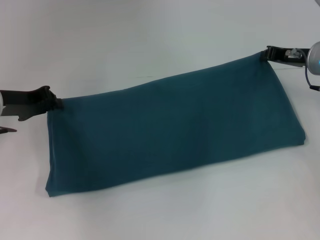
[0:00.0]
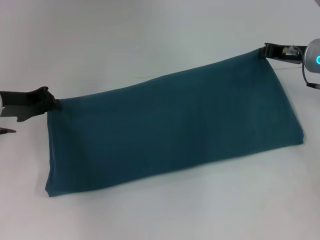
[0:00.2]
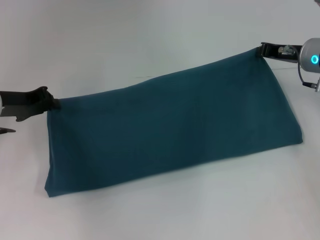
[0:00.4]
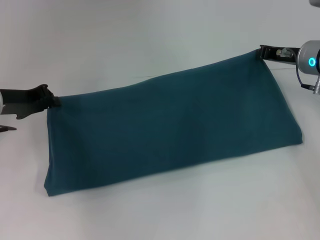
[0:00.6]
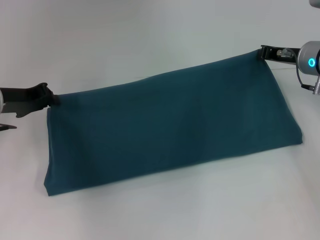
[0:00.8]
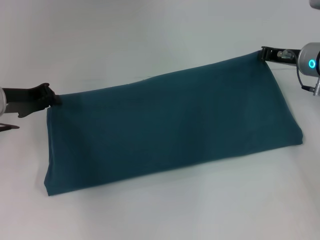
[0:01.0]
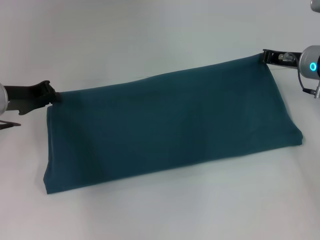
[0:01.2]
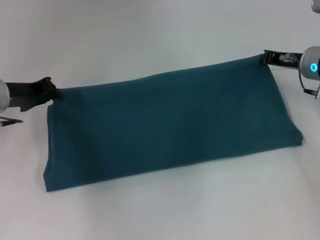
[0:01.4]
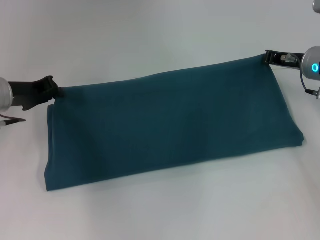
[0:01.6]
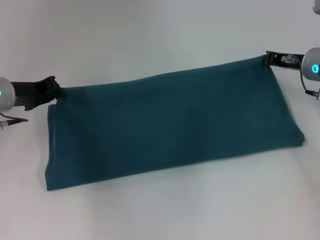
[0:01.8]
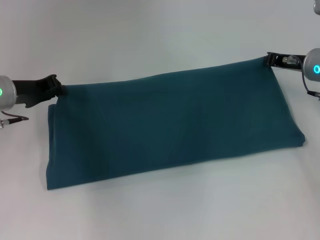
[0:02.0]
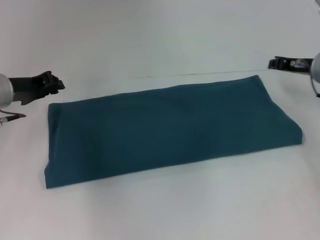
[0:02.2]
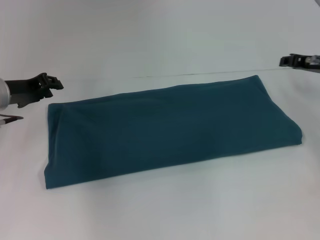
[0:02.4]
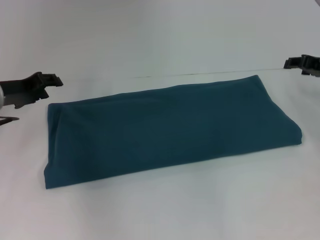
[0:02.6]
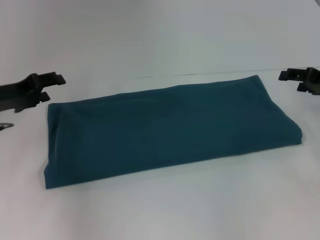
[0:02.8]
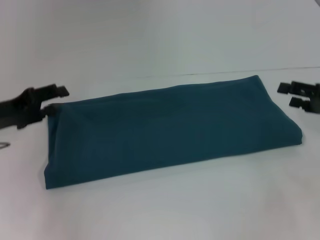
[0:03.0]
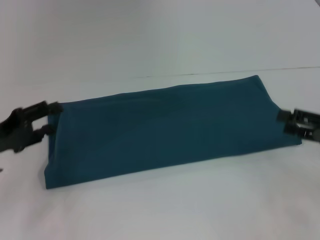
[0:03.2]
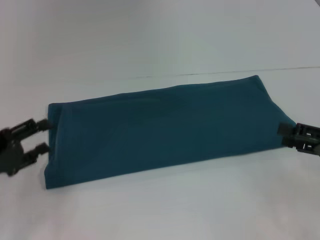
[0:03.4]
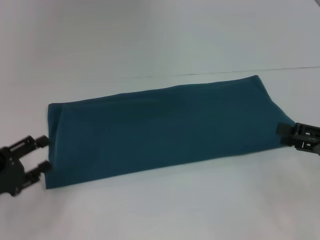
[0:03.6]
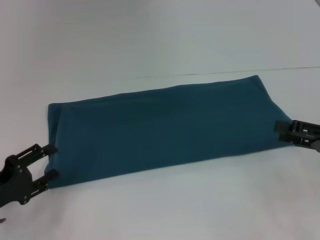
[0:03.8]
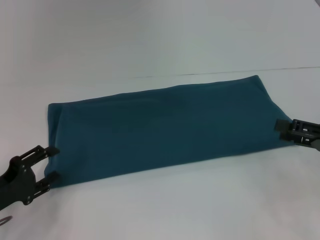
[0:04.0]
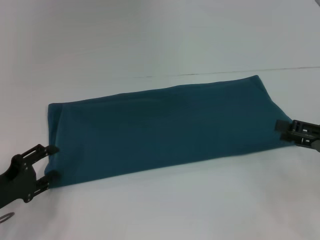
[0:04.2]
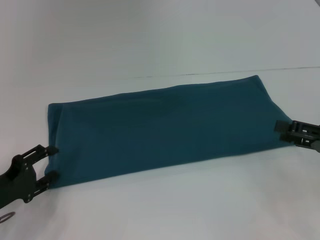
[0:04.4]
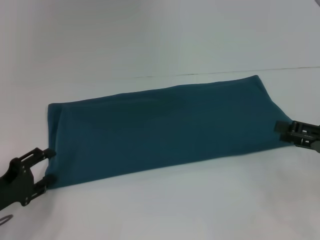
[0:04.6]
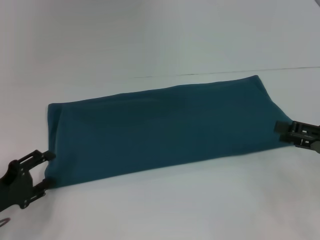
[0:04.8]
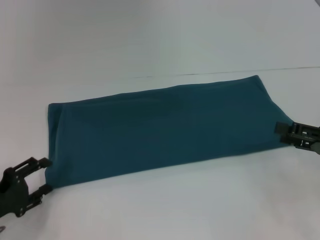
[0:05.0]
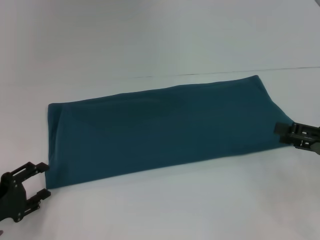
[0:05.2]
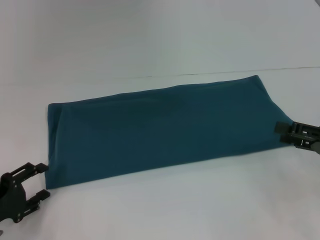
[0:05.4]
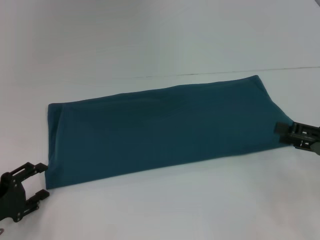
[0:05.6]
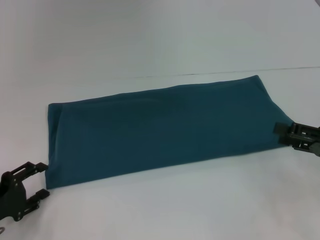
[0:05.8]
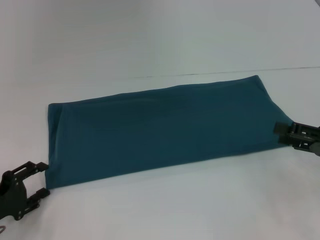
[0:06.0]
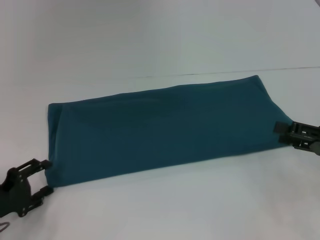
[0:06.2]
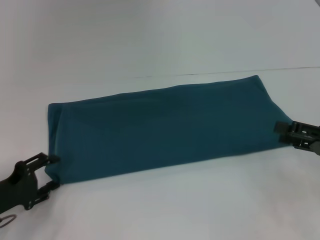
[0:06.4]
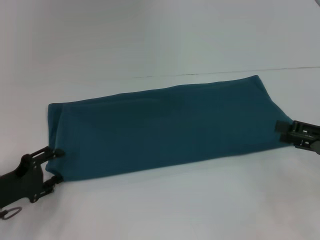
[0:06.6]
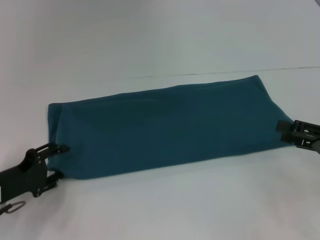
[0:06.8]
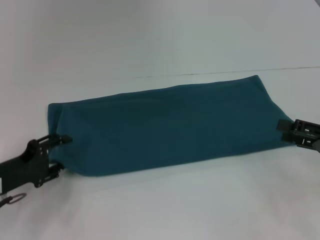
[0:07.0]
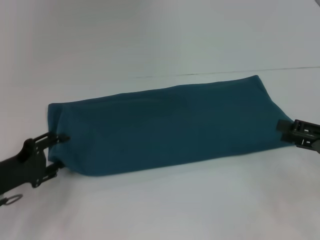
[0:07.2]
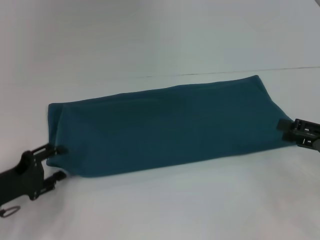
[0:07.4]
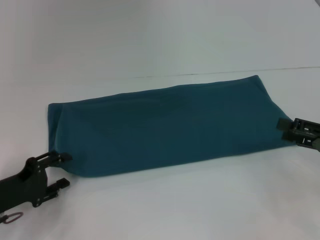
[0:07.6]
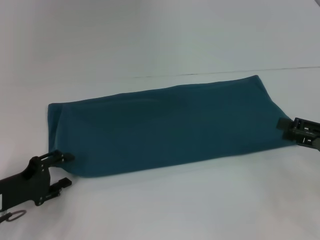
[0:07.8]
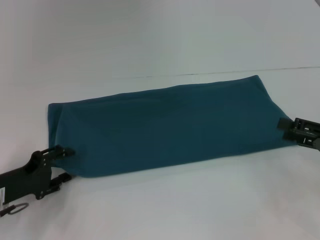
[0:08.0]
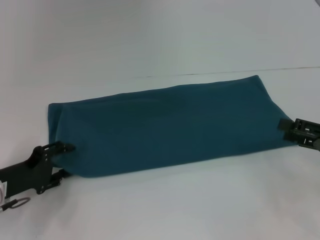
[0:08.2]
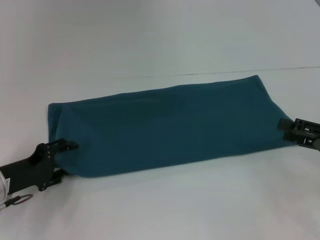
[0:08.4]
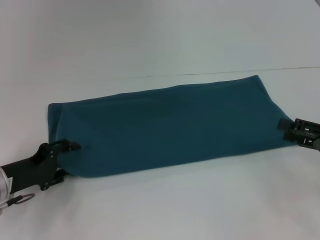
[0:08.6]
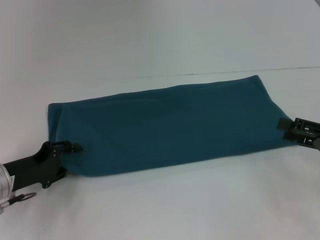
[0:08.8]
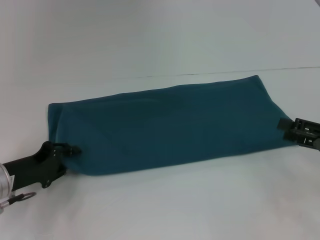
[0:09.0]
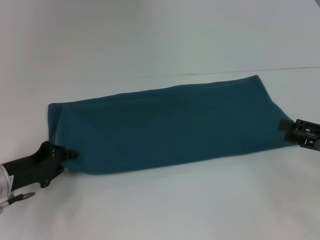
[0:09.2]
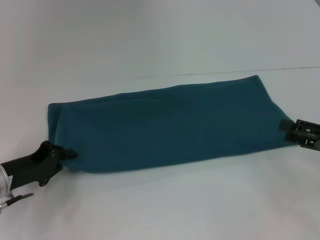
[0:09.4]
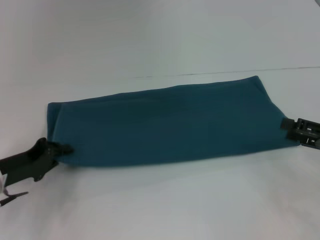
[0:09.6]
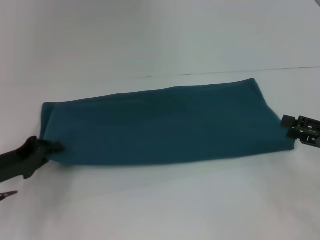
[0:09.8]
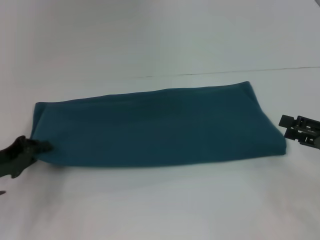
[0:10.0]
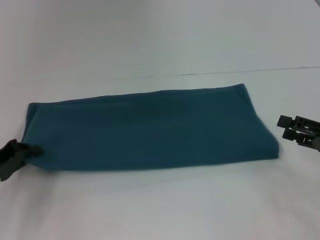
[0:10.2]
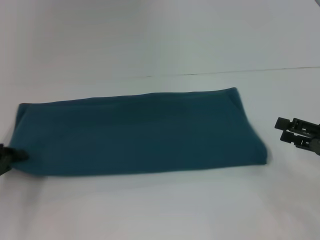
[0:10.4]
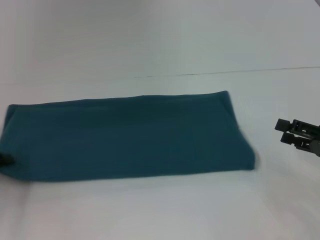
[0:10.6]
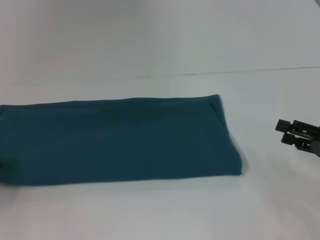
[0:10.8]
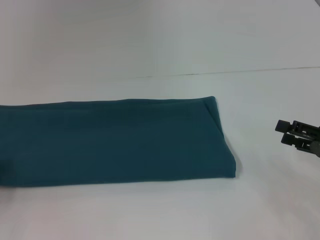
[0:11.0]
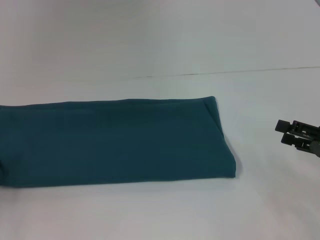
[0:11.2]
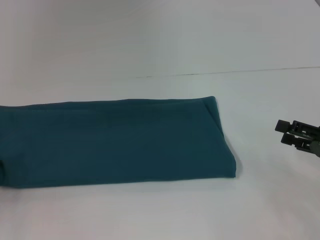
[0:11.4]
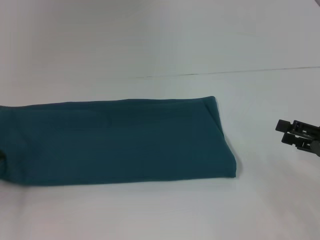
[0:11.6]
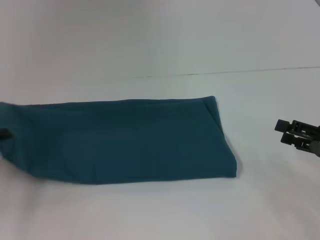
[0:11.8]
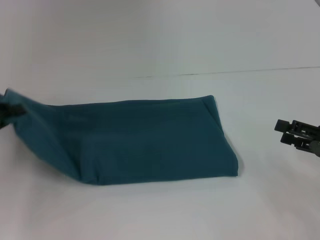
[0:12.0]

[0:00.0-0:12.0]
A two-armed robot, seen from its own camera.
Step, 0:00.0 to 0:02.2: Fold the clothes to the right.
0:00.0 to 0:01.6: The grippers make only small movements.
0:01.6 to 0:03.0: The left gripper heads backward, covering some 5 cm, and opens up. The right gripper is displaced backward and to the right by some 15 cm, and opens.
0:03.0 to 0:04.4: The left gripper heads downward and backward, covering some 15 cm, while the right gripper shifts some 5 cm backward.
0:04.4 to 0:06.0: The grippers move only a little.
0:07.6 to 0:09.0: The grippers make only small movements.
0:09.0 to 0:10.4: The left gripper heads to the left, covering some 5 cm, and closes its fingers.
0:10.4 to 0:12.0: The left gripper heads upward, covering roughly 5 cm.

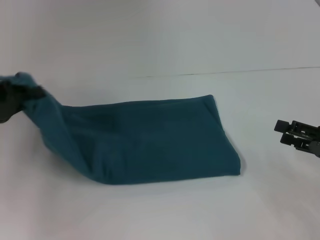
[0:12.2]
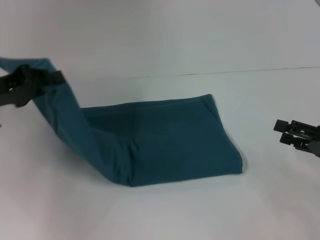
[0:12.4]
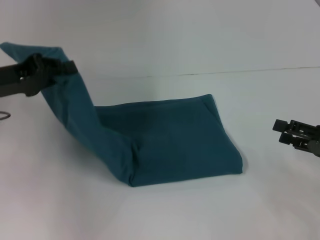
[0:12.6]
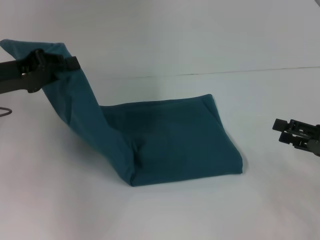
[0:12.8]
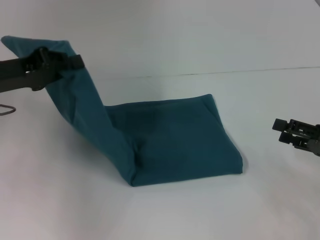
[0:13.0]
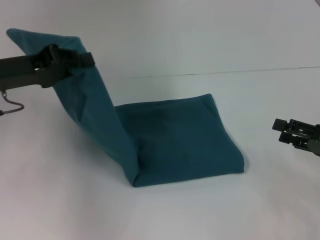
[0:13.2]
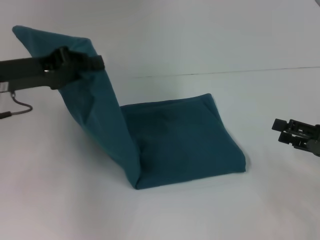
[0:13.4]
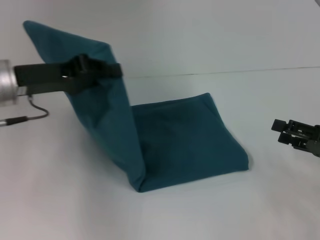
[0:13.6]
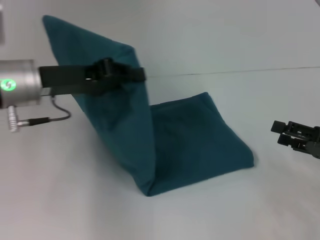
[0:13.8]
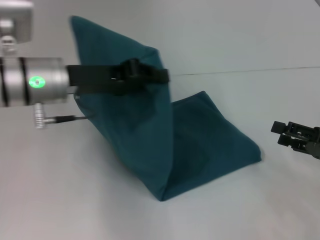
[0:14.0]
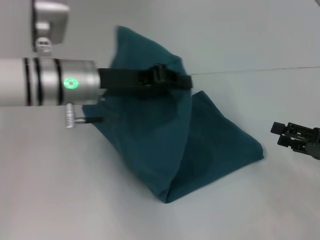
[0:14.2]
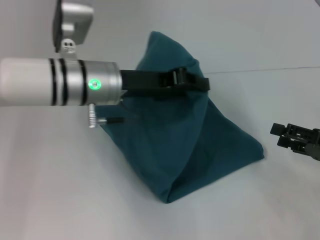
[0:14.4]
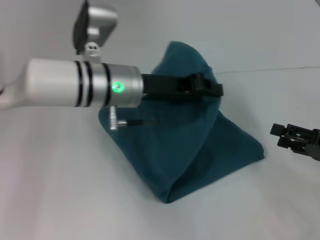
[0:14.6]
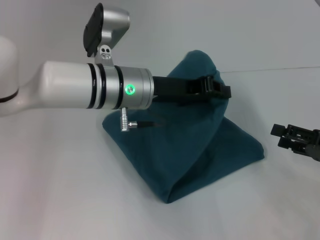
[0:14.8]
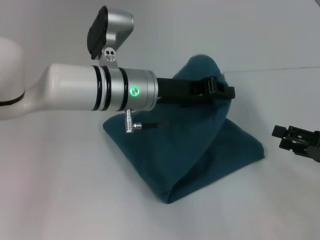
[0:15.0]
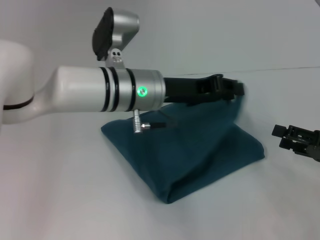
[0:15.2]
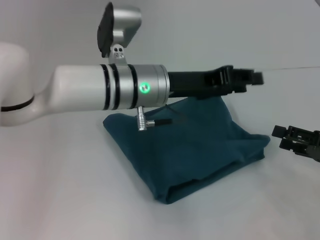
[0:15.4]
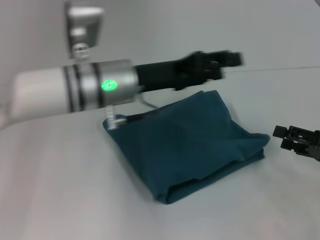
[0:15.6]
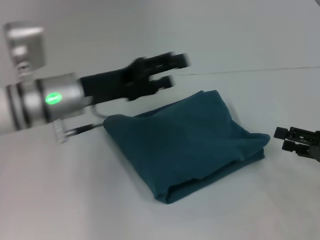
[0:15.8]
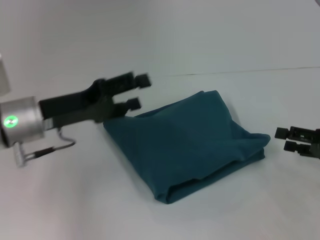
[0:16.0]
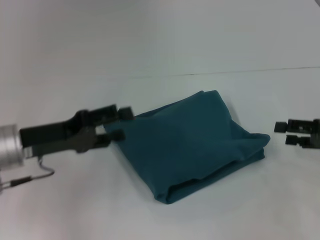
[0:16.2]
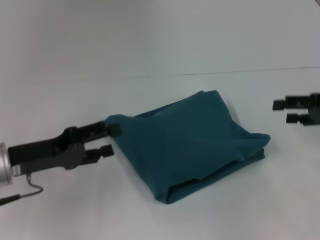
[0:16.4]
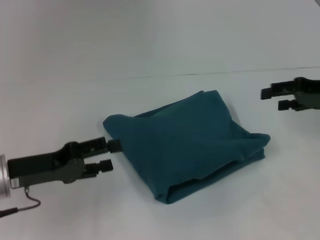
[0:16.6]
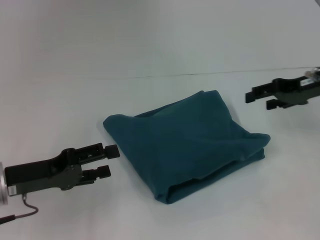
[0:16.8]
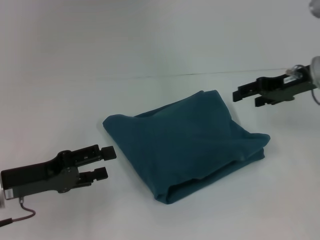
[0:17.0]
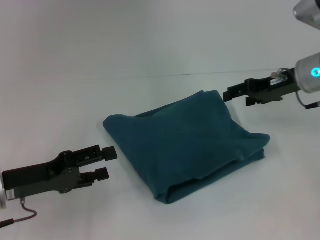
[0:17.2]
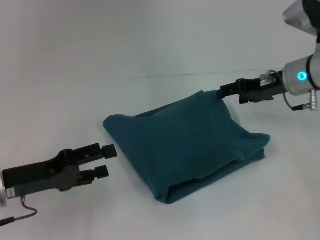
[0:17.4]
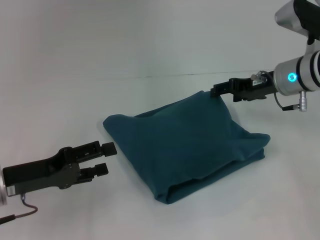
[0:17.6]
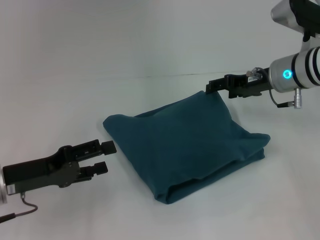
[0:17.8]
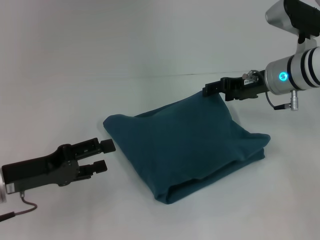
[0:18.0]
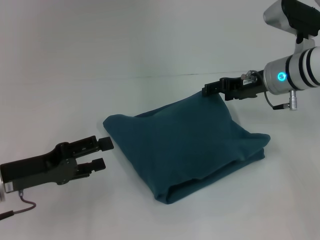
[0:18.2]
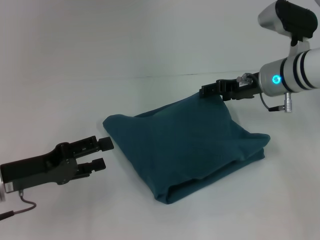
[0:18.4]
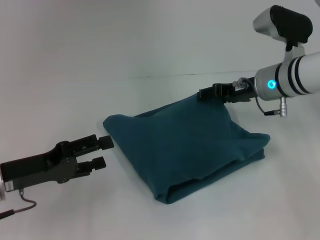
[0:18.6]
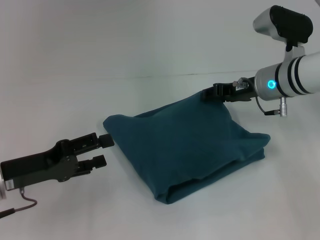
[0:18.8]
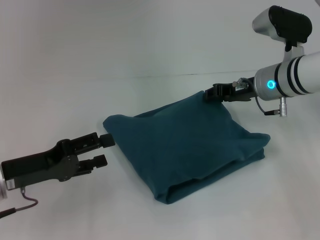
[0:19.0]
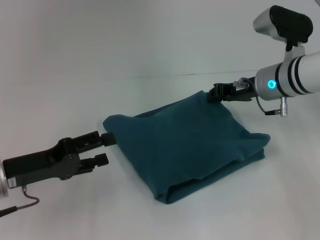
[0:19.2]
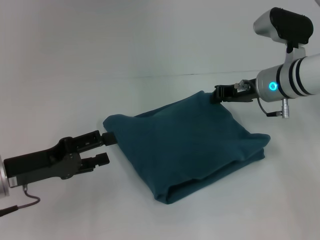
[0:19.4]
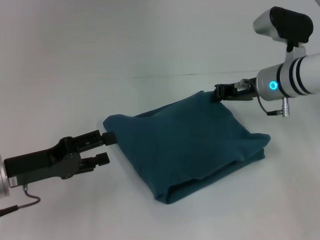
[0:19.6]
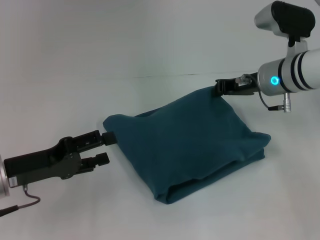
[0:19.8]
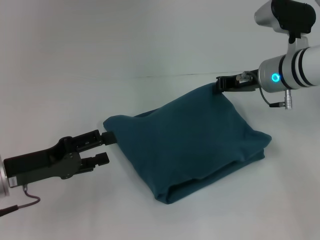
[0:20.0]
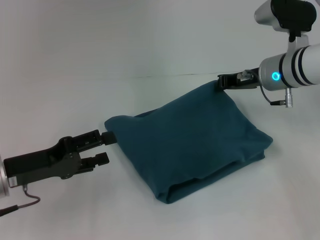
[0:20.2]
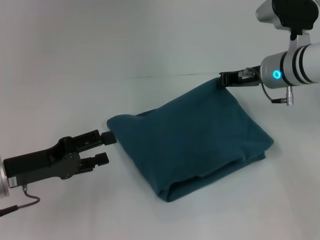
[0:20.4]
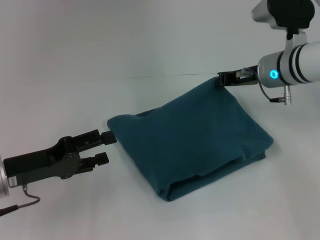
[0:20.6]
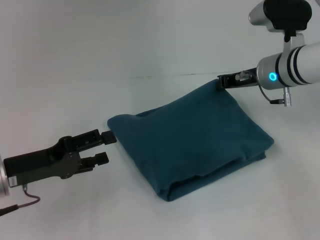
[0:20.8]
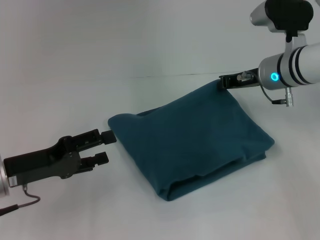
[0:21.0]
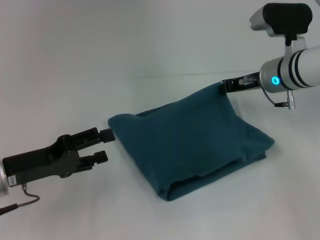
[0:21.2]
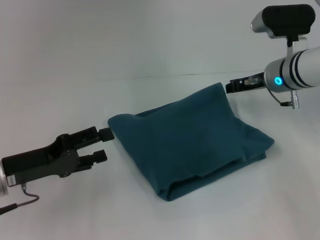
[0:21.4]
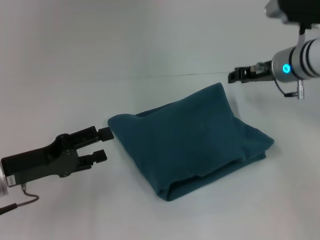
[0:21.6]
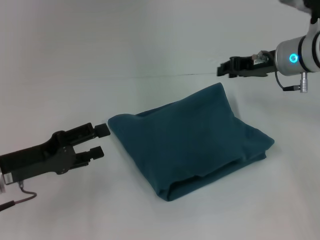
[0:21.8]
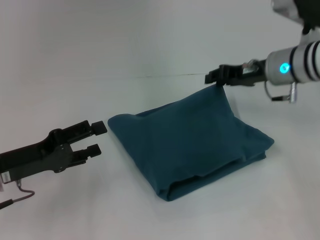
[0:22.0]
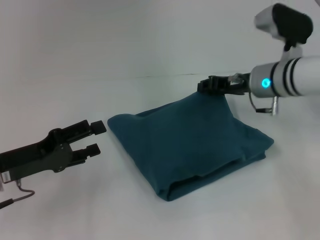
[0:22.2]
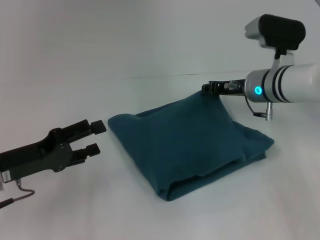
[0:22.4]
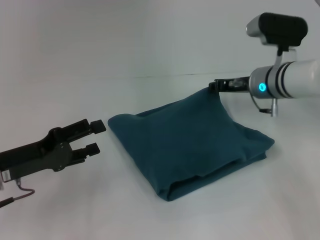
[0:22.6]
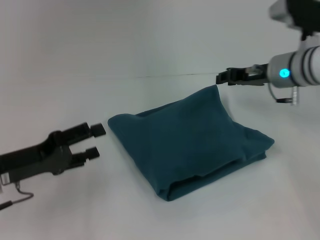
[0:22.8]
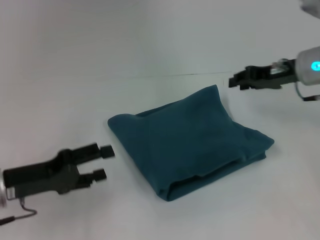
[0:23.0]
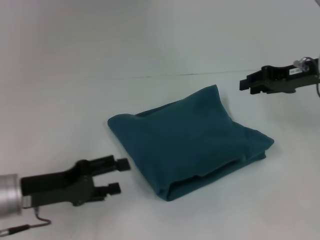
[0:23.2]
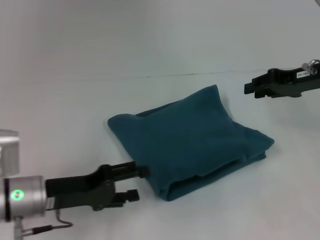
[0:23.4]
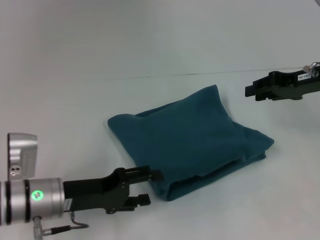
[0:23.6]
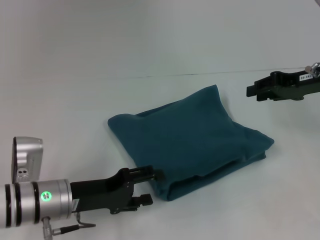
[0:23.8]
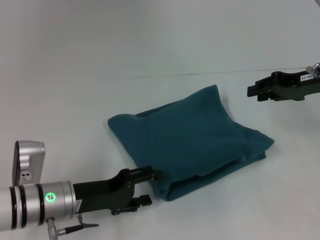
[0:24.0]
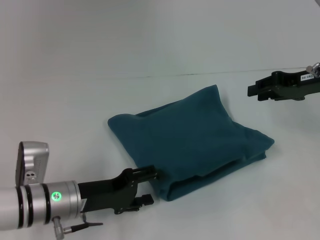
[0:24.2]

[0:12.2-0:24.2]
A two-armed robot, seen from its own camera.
Step, 0:12.2 to 0:15.4: Fold the clothes to the left.
0:12.2 to 0:13.8: The left gripper is displaced to the right by roughly 10 cm.
0:13.8 to 0:15.2: The left gripper is displaced to the right by approximately 15 cm.
0:15.2 to 0:16.6: The right gripper goes approximately 15 cm forward and upward. The left gripper moves to the left and backward, roughly 20 cm, and opens up.
0:16.6 to 0:18.2: The right gripper shifts about 15 cm to the left and forward.
0:18.2 to 0:19.8: The right gripper closes up.
0:19.8 to 0:22.6: There are only small adjustments of the grippers.
0:22.6 to 0:24.2: The left gripper is displaced to the right and downward by roughly 10 cm, while the right gripper moves to the right and upward, about 10 cm.
